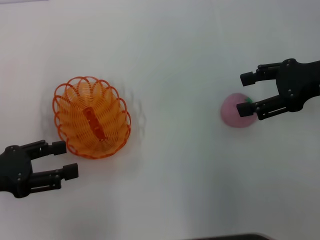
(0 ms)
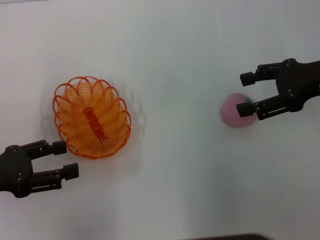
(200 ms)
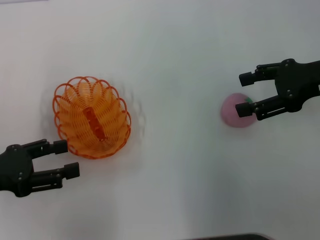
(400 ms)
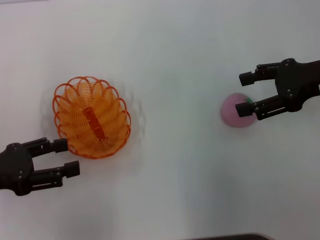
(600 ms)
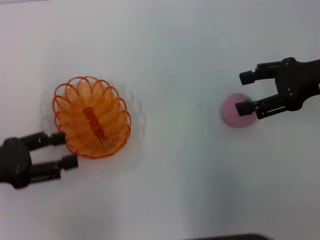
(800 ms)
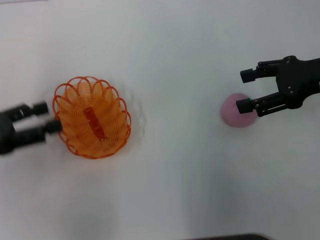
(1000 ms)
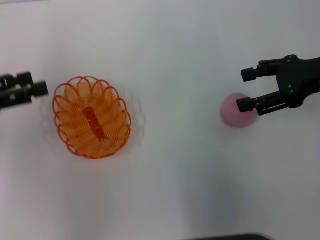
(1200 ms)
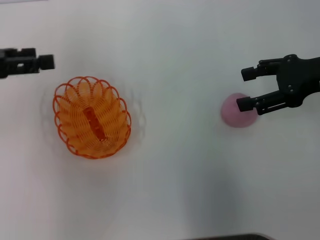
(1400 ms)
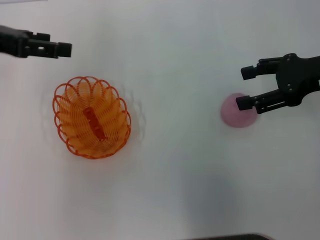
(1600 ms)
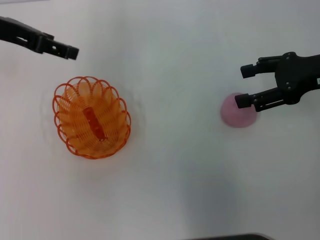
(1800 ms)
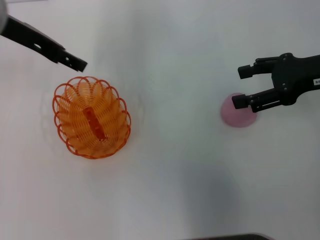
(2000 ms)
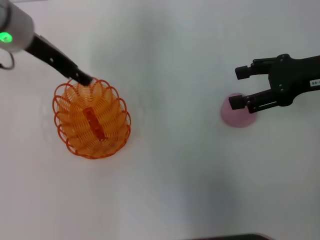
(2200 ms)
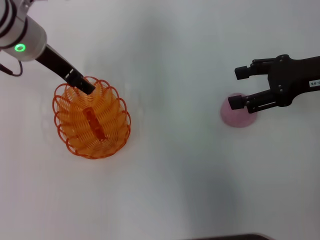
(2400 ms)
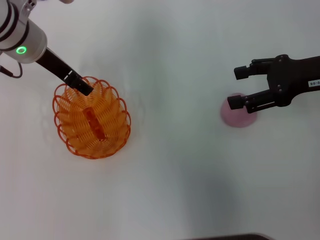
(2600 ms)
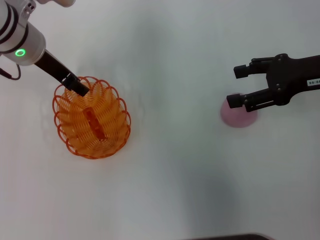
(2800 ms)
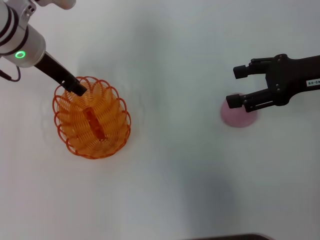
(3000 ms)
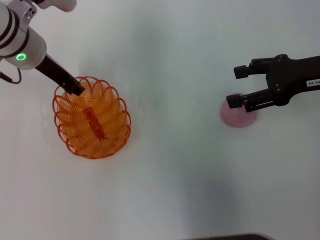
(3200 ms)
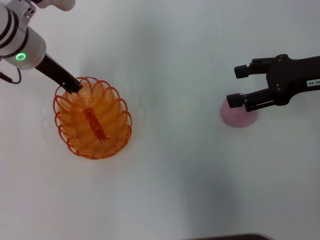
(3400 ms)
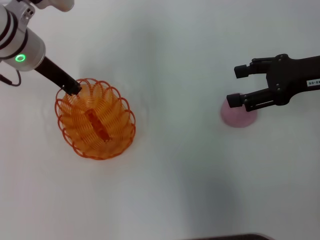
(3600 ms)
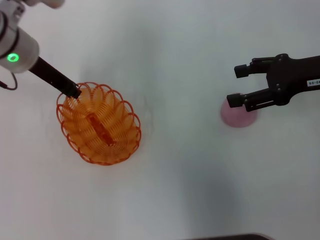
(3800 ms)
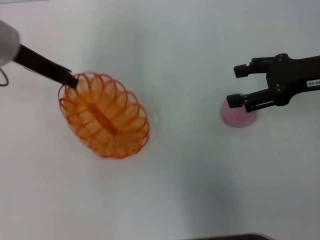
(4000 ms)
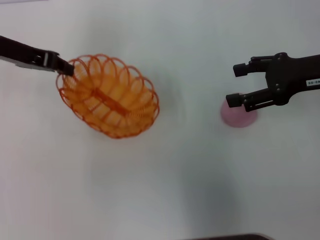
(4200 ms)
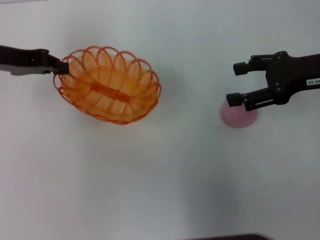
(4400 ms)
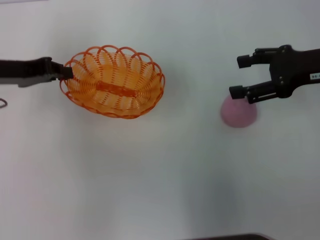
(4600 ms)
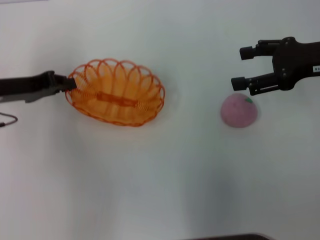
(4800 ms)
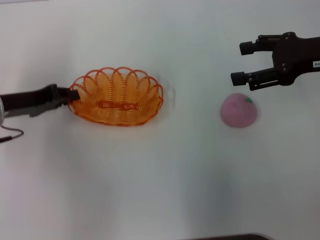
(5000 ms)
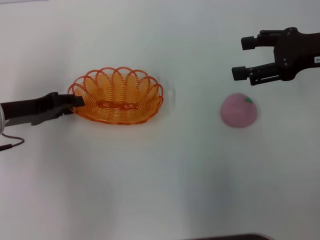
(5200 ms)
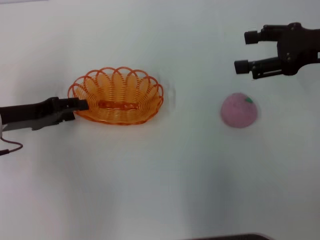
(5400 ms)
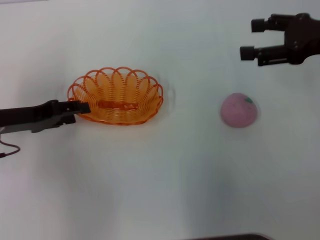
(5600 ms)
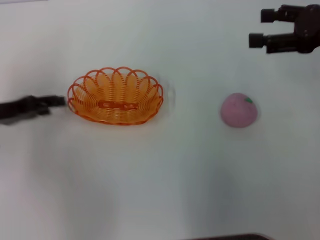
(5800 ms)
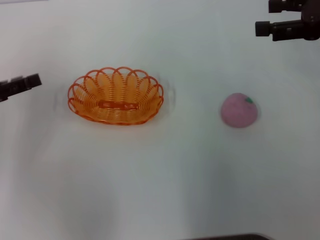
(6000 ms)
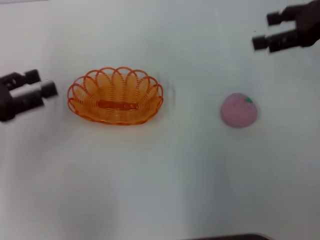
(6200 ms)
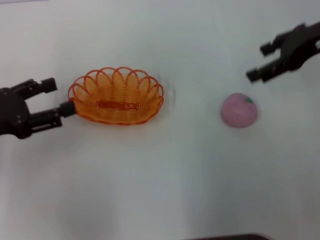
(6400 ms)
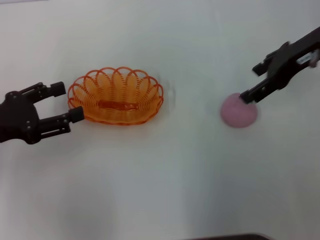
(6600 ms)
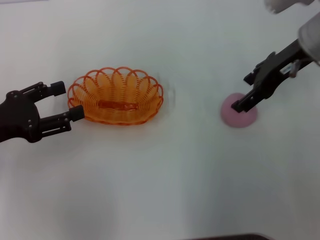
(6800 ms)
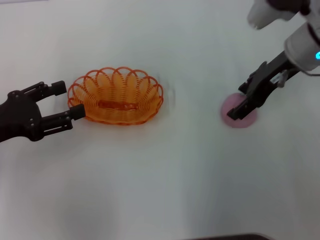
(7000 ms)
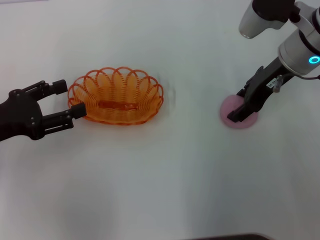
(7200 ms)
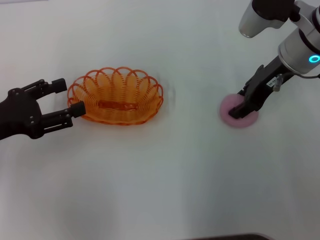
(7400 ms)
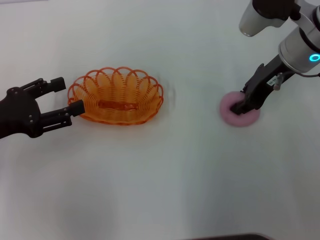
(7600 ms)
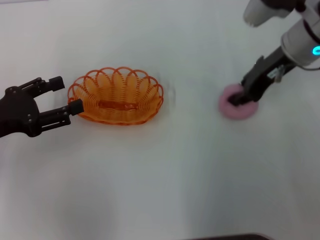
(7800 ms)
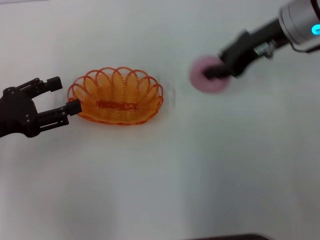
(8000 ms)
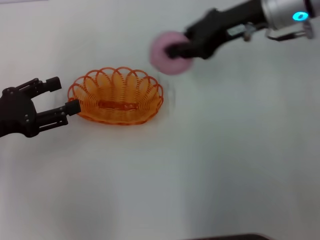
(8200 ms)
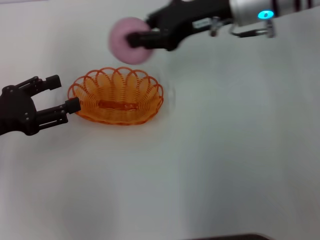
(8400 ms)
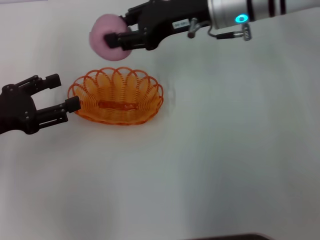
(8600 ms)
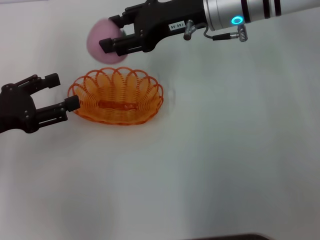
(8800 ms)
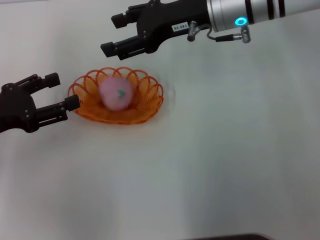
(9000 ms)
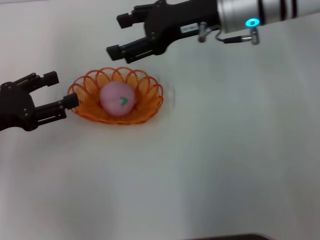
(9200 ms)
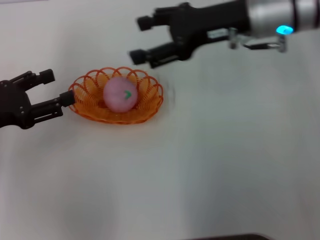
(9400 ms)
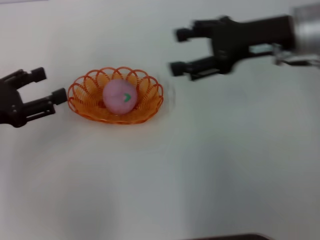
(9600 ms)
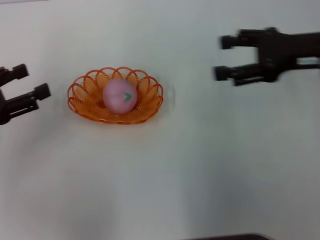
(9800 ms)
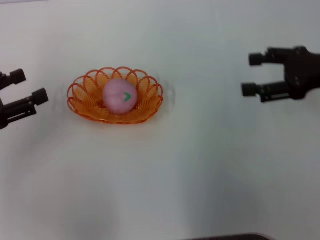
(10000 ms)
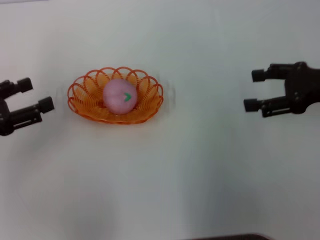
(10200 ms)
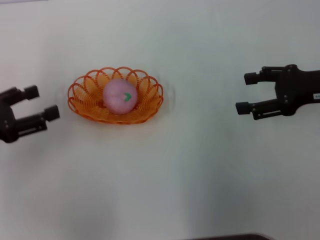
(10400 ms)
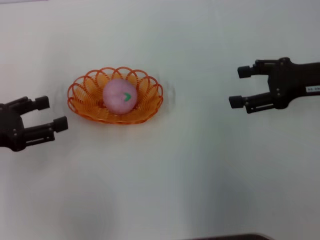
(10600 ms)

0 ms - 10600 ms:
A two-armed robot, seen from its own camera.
Step, 0 ms - 4000 ms: Pick up the basket with the left gripper.
Step, 4400 ms - 5600 ms: Place the basket in the center of view with the left gripper.
Step, 5800 ms - 8000 ms: Pick up the peach with the right gripper.
Step, 8200 ms - 9400 ms: Place the peach into the basket with the right gripper.
0 ms - 1600 ms: The left gripper travels forward and upward by about 20 cm.
1600 ms - 3000 ms: The left gripper shifts roughly 15 cm to the right, downward and forward.
3000 ms - 4600 ms: The left gripper travels to the left and backward by about 10 cm, and closes its fingers.
4600 ms - 6000 ms: The left gripper goes roughly 10 cm backward and to the left, and opens; the right gripper ends up some 5 cm from where it was.
6000 ms - 7600 ms: The right gripper heads to the left and downward, covering some 10 cm, and closes its fingers.
7600 ms - 9000 ms: The right gripper travels to the left by about 10 cm, and closes and opens again.
9000 ms - 10600 ms: The right gripper shifts about 20 cm to the right and backward, and opens its fingers.
